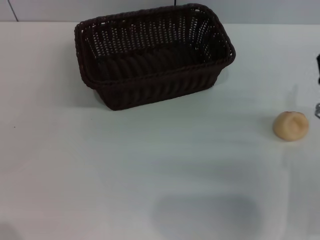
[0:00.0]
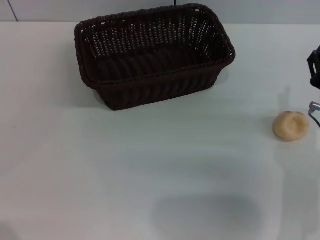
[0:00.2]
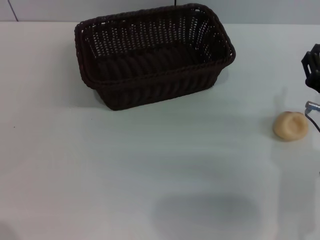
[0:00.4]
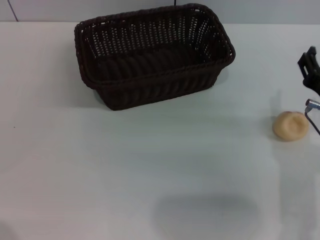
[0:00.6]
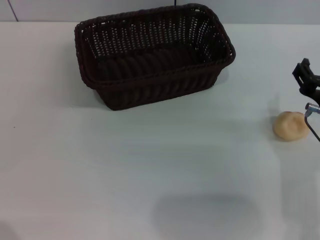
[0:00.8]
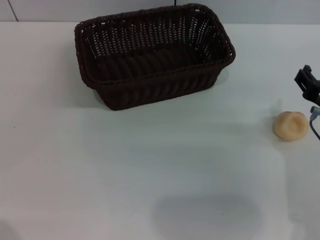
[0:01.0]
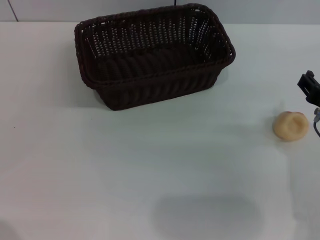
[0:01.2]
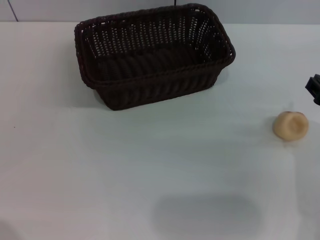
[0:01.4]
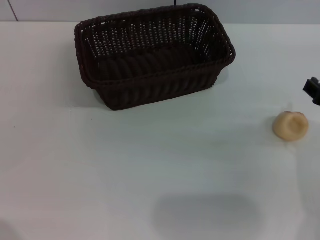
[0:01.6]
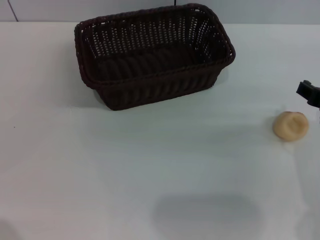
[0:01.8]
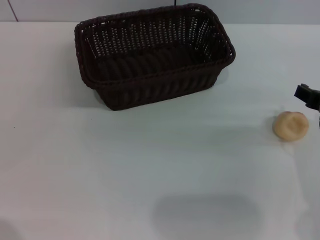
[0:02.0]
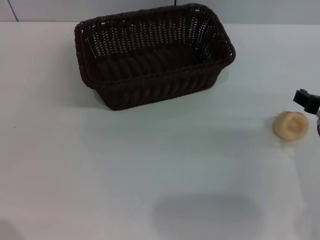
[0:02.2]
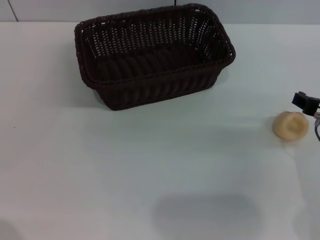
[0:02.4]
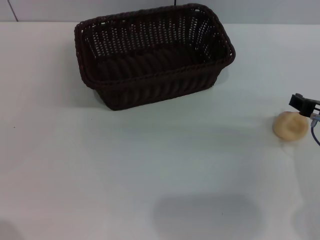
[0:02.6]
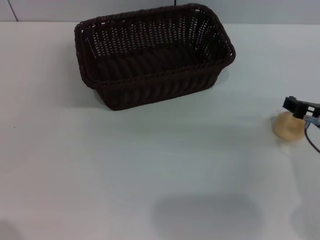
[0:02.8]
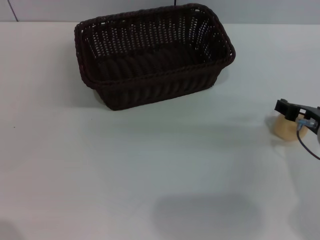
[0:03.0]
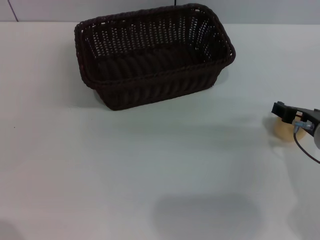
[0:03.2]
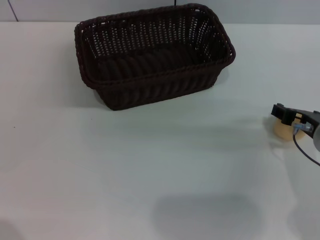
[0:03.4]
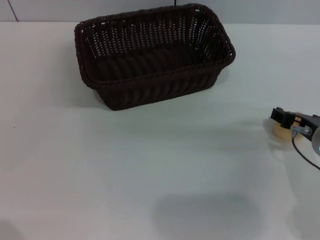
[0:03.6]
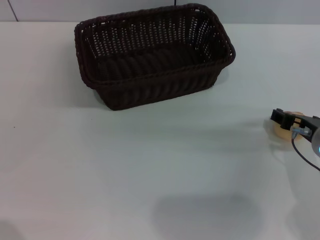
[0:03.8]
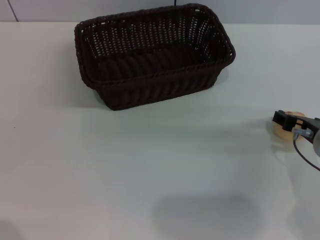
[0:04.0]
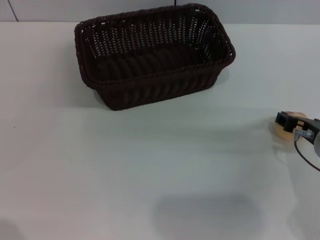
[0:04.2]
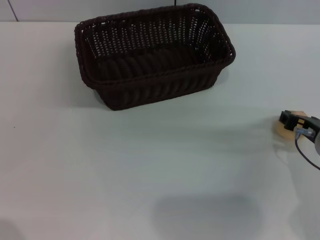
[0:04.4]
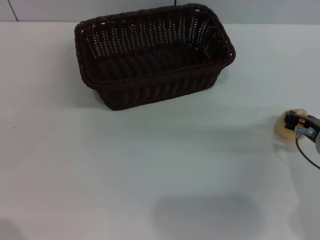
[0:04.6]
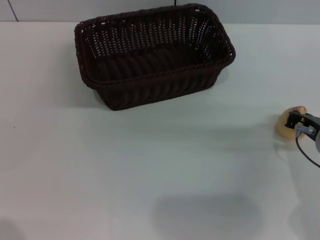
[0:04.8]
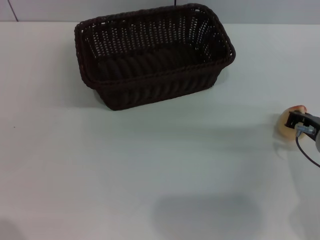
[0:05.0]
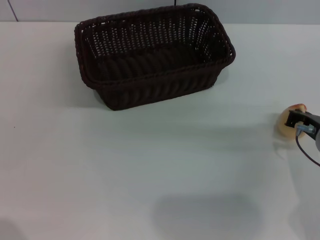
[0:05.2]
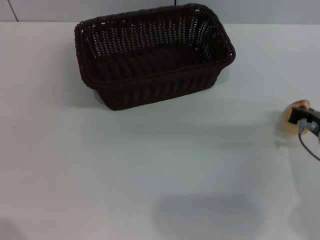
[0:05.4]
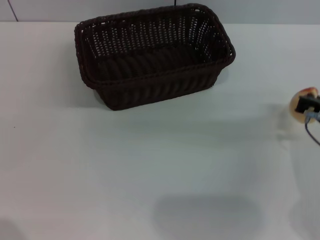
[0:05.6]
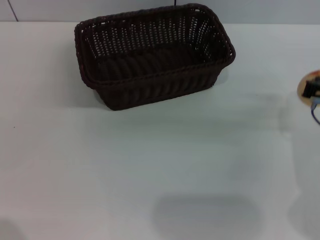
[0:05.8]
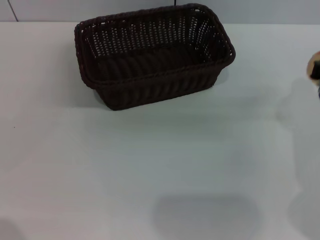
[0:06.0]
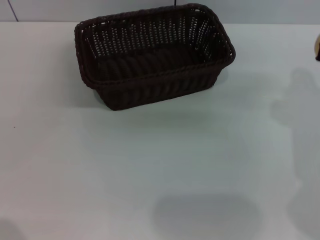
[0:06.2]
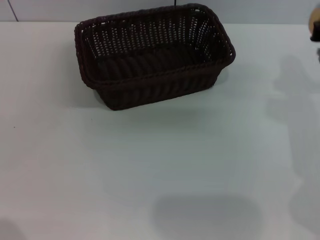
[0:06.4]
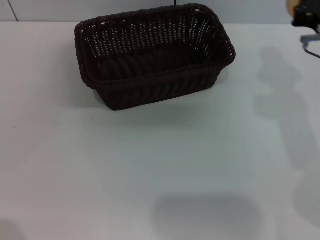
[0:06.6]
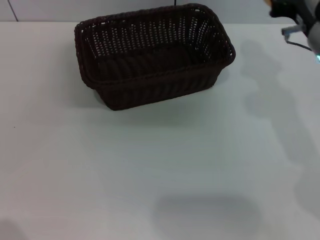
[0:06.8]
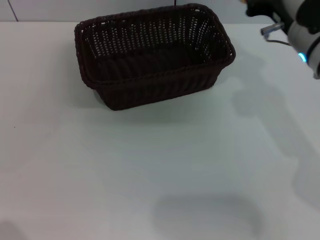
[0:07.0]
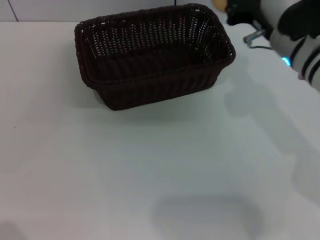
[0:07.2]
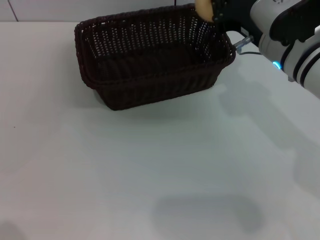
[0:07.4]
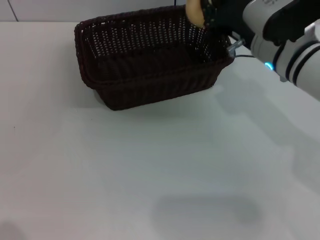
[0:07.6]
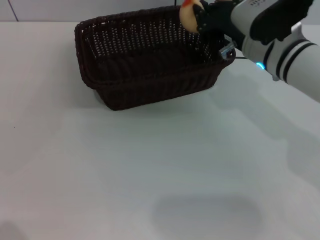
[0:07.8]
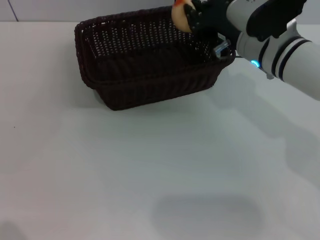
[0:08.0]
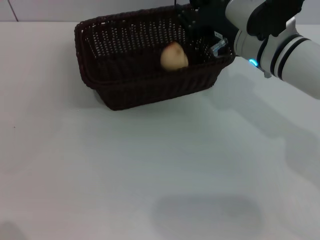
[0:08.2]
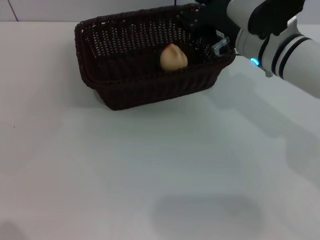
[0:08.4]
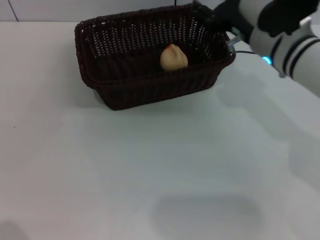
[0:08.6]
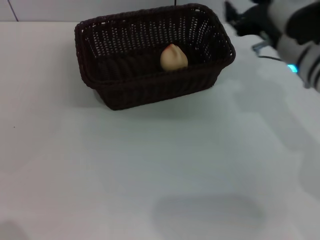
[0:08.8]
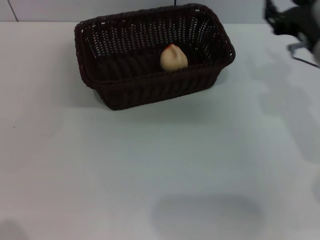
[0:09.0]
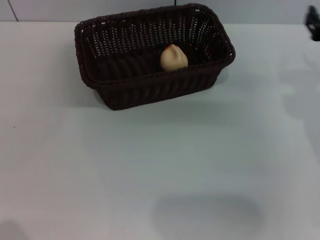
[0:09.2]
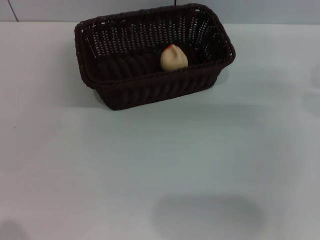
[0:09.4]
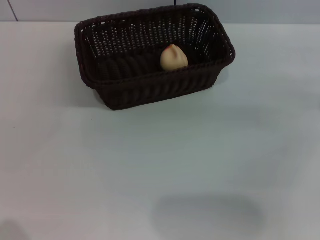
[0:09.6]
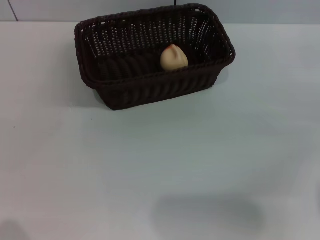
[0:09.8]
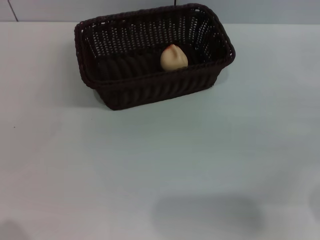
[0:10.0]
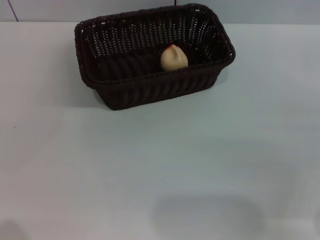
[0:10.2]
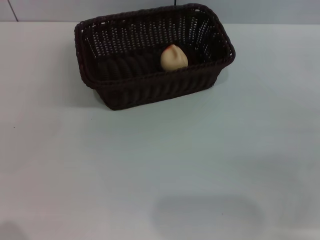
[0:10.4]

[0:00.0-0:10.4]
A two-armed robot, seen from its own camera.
Step, 0:00.0 to 0:05.8: Pick up the egg yolk pastry with the right gripper.
Step, 0:06.0 to 0:08.4: Place the egg yolk pastry into the basket with the right gripper.
0:01.4 to 0:04.4: The grippers make only small movements.
0:04.4 to 0:06.0: The right gripper shifts by about 5 cm, and closes its fingers.
0:06.0 to 0:07.4: The right gripper heads forward and to the left, covering some 10 cm.
0:07.4 to 0:09.0: The right gripper travels to the right by about 5 cm, and opens up.
0:09.0 to 0:10.4: The right gripper travels to the right and backward by about 15 cm.
